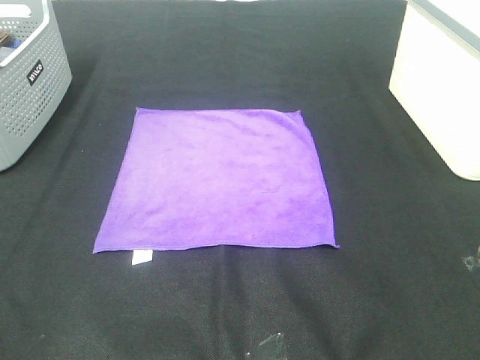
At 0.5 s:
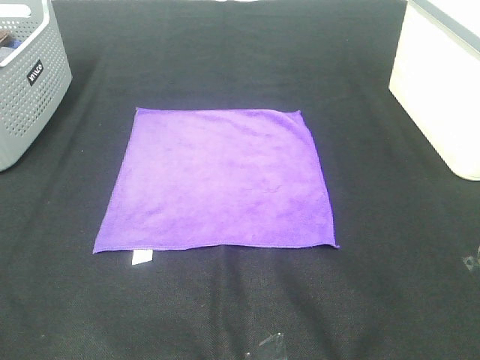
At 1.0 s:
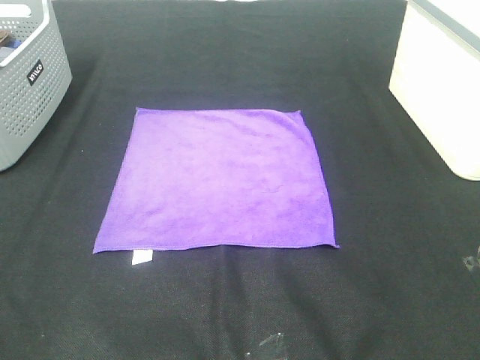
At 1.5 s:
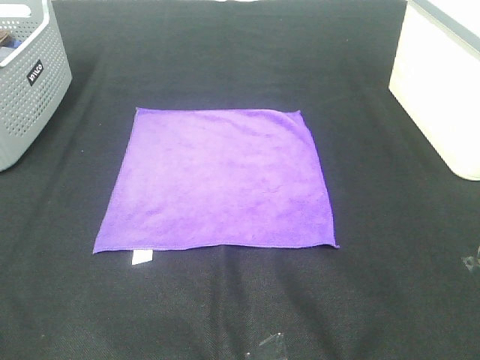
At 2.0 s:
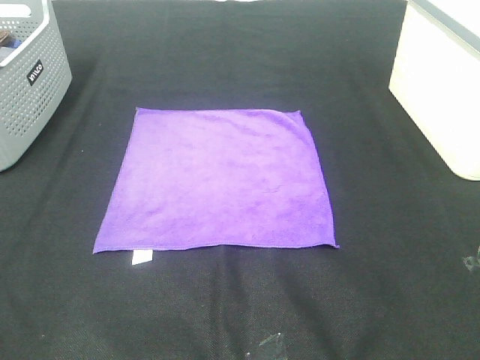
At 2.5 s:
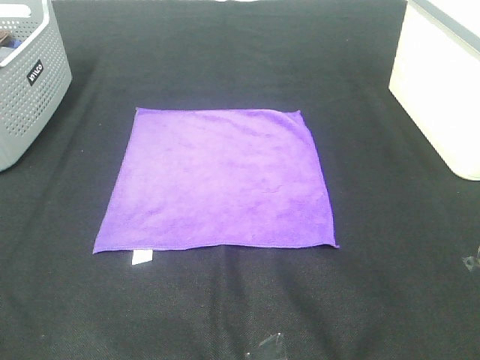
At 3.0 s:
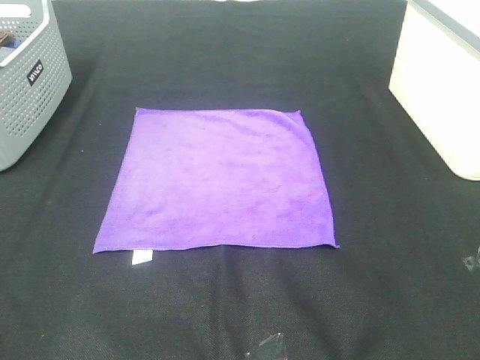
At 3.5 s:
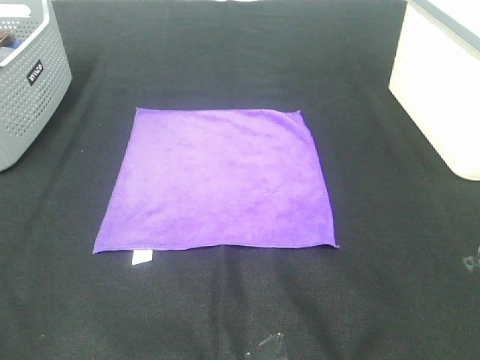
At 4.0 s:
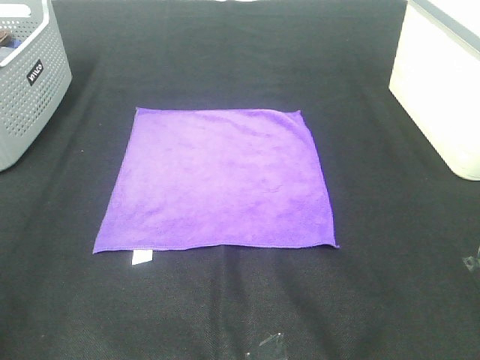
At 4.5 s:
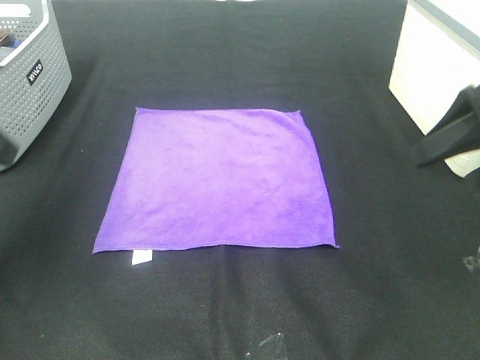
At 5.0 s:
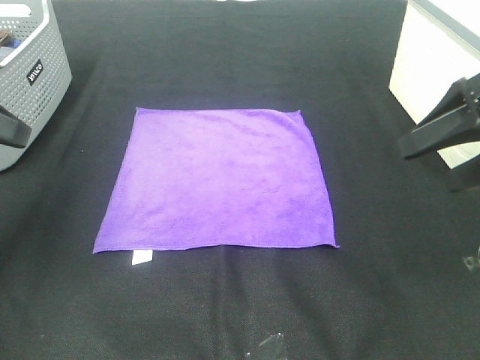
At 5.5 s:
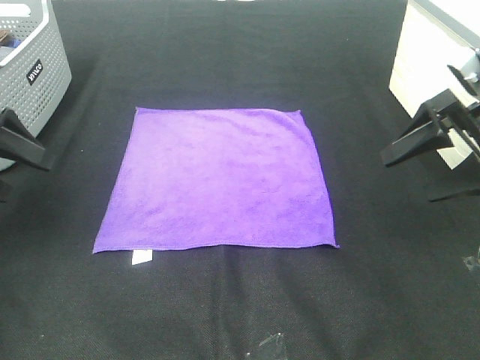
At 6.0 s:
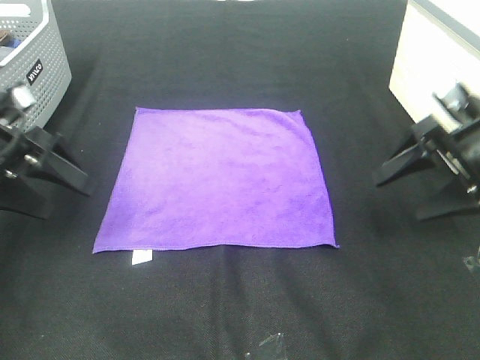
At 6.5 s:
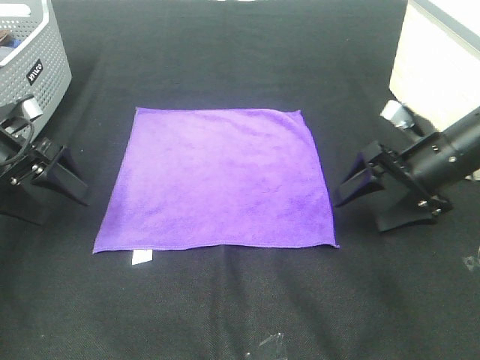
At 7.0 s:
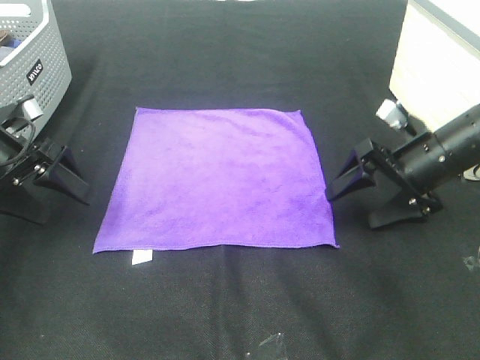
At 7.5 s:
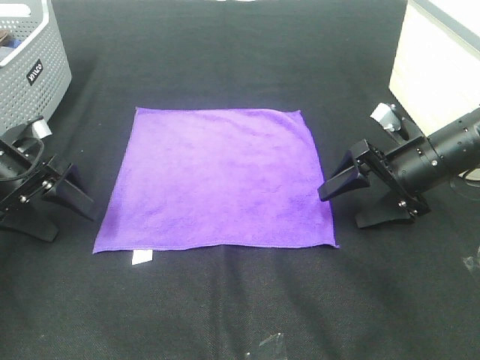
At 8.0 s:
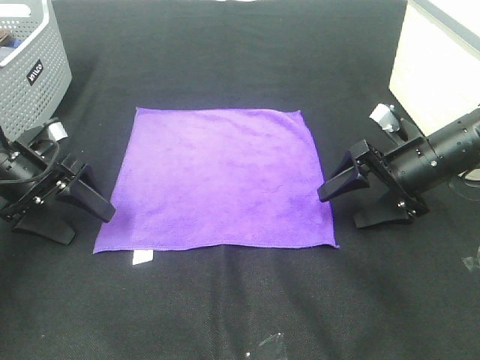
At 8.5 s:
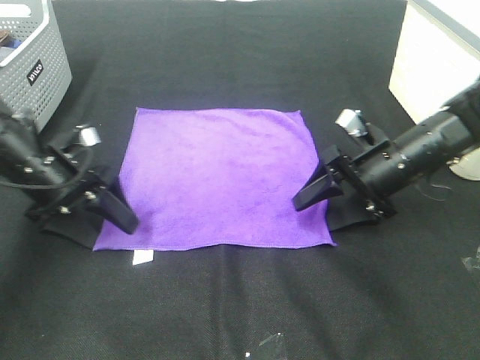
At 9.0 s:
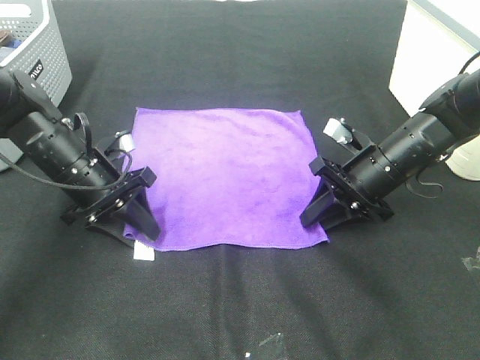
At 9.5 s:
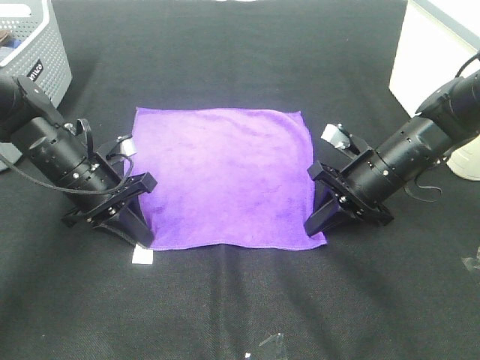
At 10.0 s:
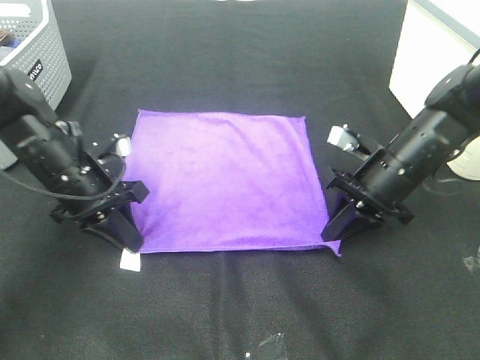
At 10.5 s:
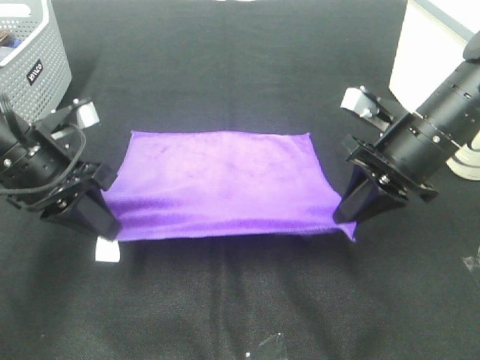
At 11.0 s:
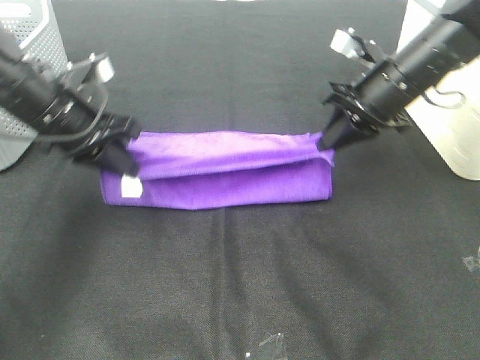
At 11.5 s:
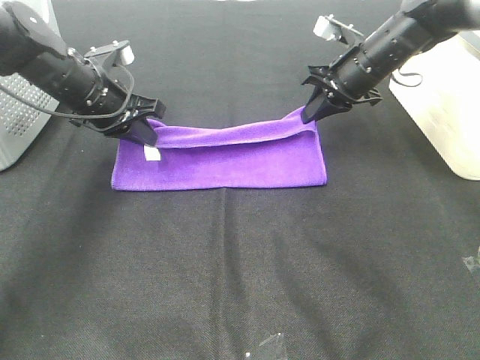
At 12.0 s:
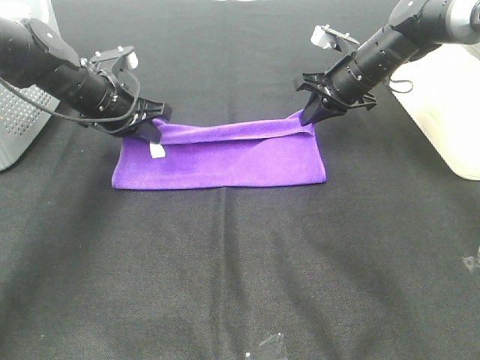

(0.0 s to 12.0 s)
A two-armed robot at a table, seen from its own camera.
Task of the whole recording: Fold towels.
Step, 0.0 s - 9.0 s: Left hand: grab the bottom left corner of purple towel.
Step, 0.0 s - 9.0 s: Right hand: grab the bottom right corner of purple towel.
0.0 s - 2.0 s: The two grippers keep their place.
4.0 s - 6.0 s: Both grippers move forward and downward, approximately 25 cm.
6.0 s - 8.0 s: The right gripper is displaced to the left and downward by roughly 5 cm. The left gripper heads downward, covering approximately 5 cm.
8.0 s - 10.0 s: The left gripper travels to the right by some 10 cm, and closes up, while the right gripper closes up.
10.0 s - 12.0 s: The two grippers go some 15 cm forward.

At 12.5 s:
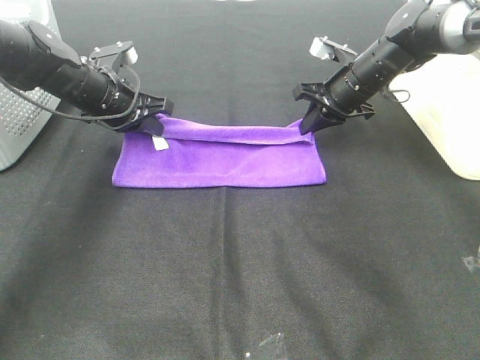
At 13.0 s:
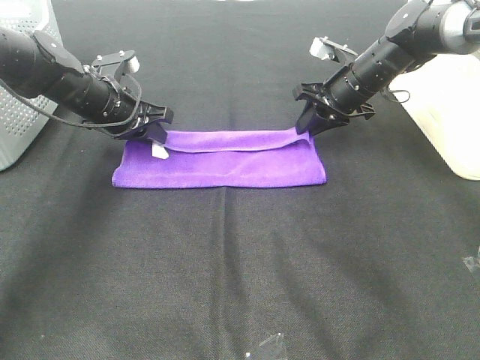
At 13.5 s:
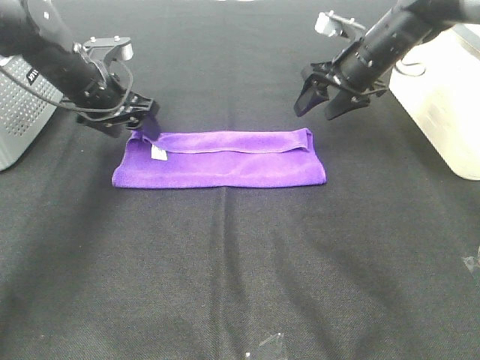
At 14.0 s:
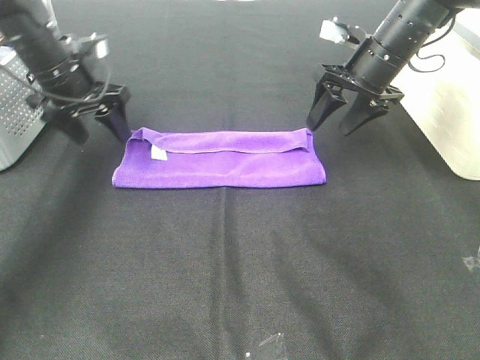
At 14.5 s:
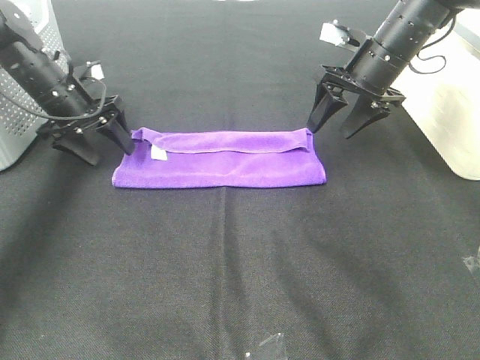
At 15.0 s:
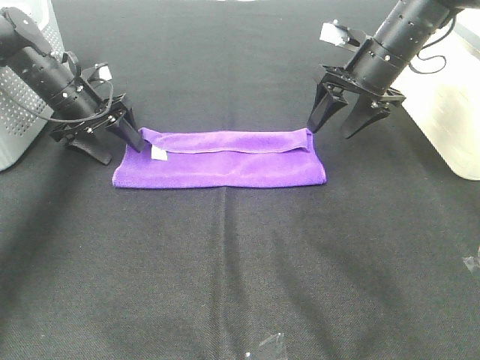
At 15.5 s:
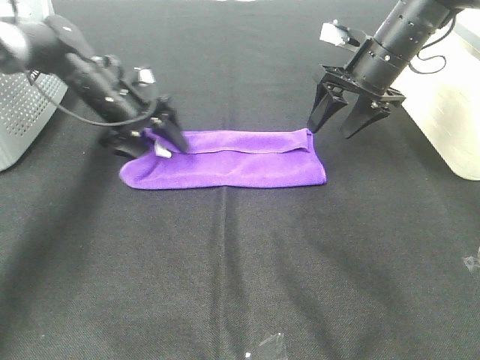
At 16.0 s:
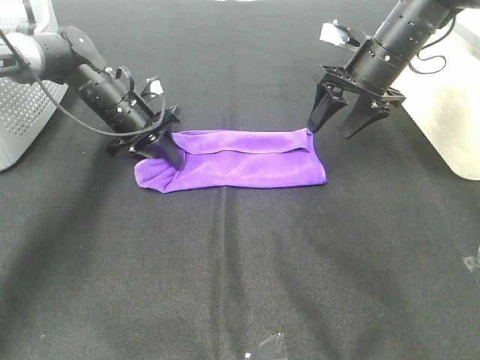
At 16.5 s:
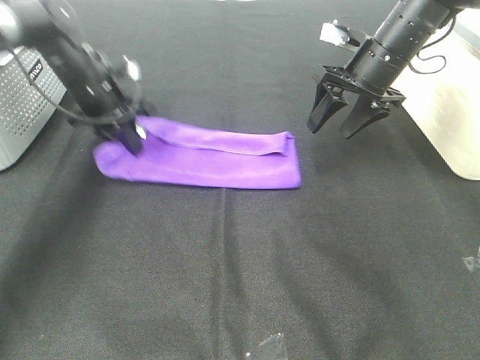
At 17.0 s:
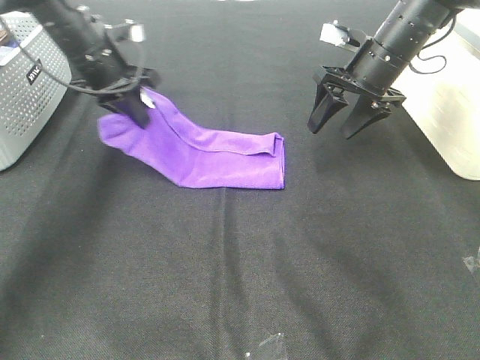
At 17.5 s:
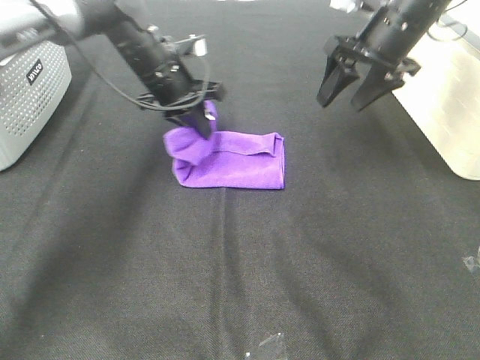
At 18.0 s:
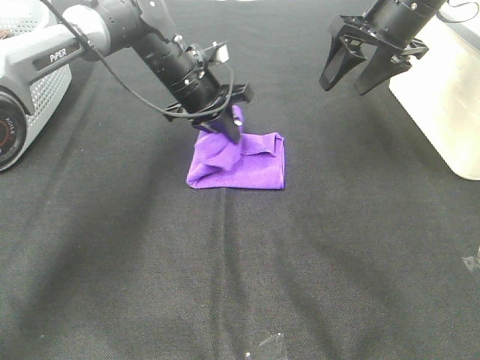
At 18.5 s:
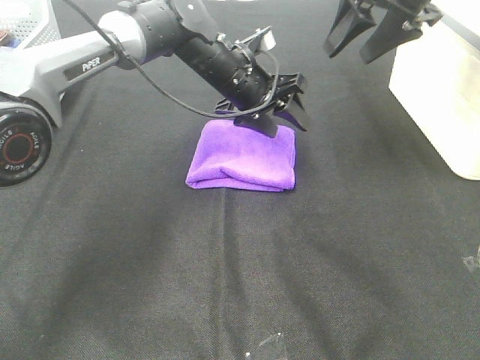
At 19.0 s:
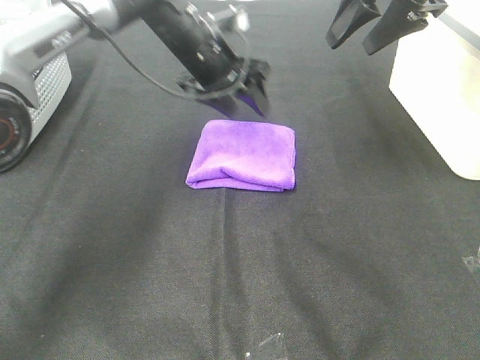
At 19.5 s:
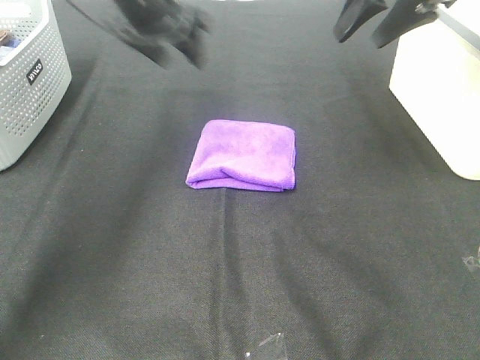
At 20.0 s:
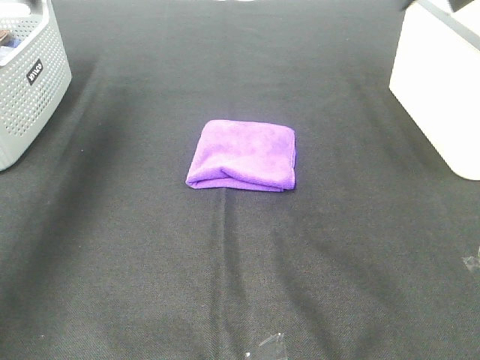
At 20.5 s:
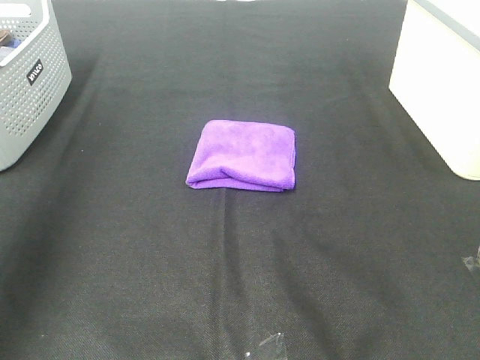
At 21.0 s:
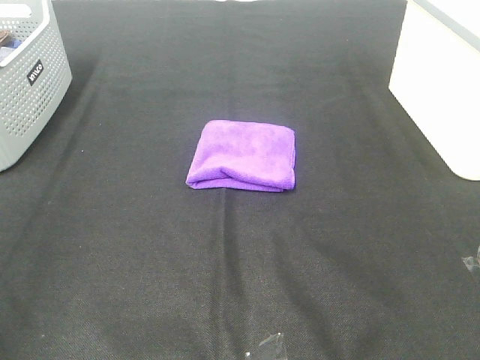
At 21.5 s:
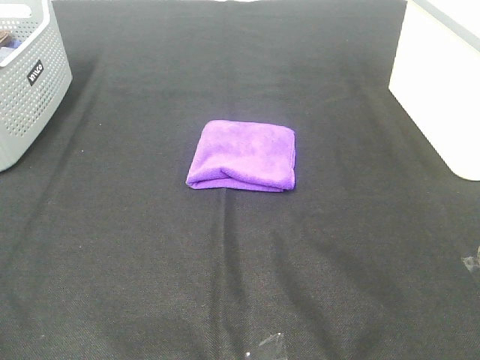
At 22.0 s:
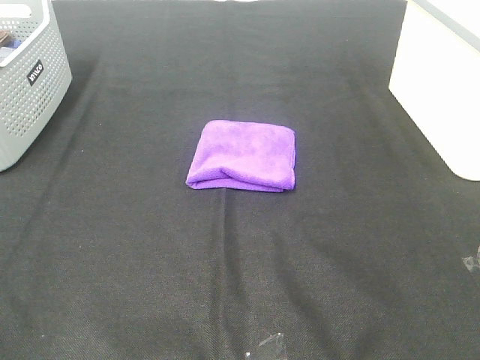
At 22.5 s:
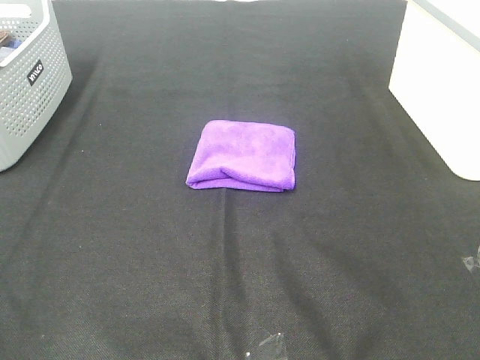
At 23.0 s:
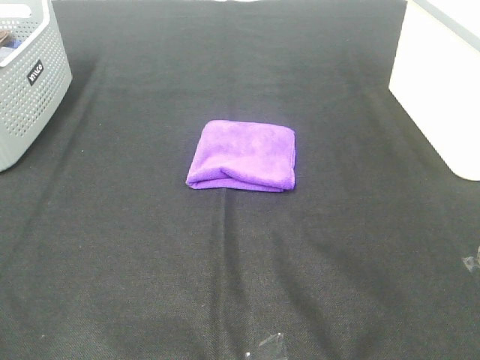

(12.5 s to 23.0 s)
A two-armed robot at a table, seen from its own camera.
Task of the whole recording: Fold towels.
Step, 13.0 s - 18.0 s: Left hand: fold the purple towel from left to right.
12.5 s - 14.5 s: The left gripper moves to the left, some 5 cm, and opens up. Meanwhile the right gripper shifts about 5 cm upward, and opens.
14.5 s - 16.5 s: The left gripper closes its fingers.
16.5 s - 19.0 s: The left gripper is displaced to the right by approximately 15 cm, and opens its fingers. The right gripper heads upward, covering approximately 15 cm.
19.0 s - 21.0 s: The right gripper is displaced backward by approximately 40 cm. Meanwhile the left gripper heads backward and to the left, covering some 50 cm.

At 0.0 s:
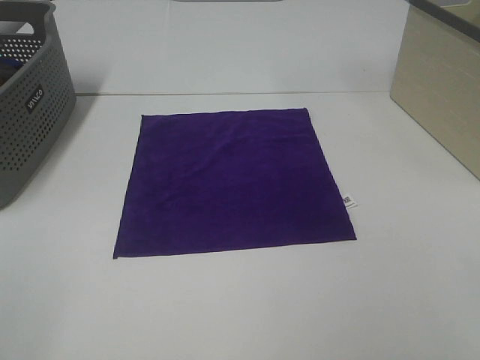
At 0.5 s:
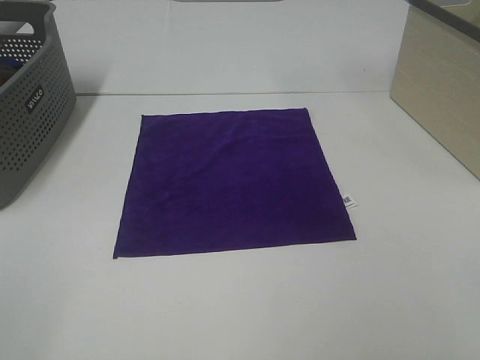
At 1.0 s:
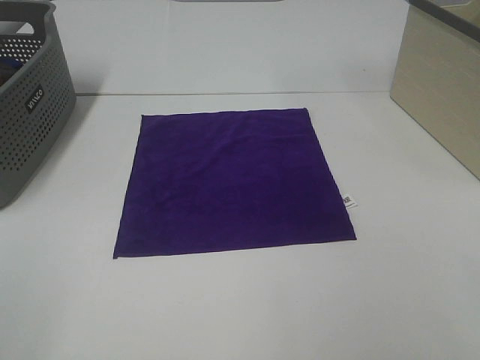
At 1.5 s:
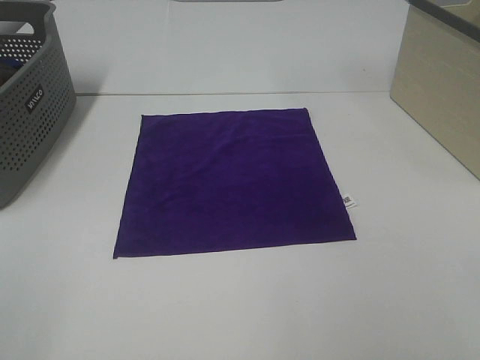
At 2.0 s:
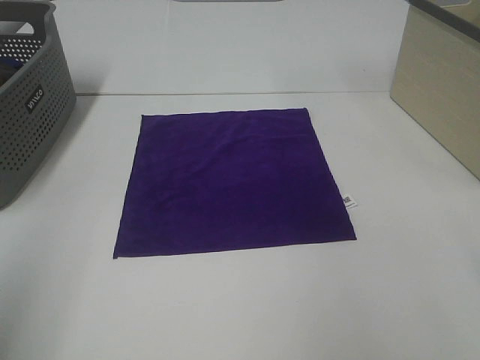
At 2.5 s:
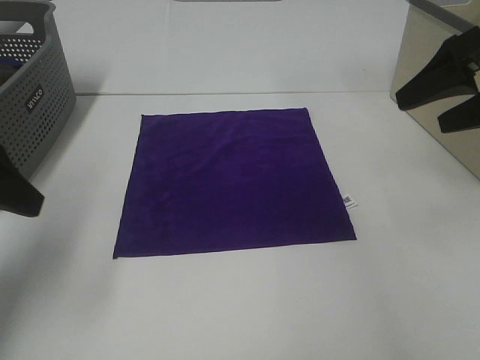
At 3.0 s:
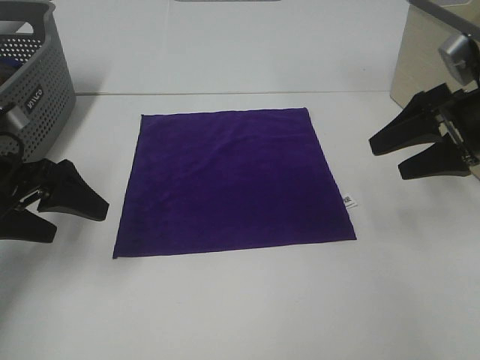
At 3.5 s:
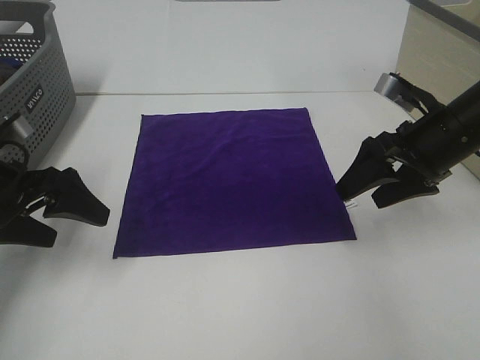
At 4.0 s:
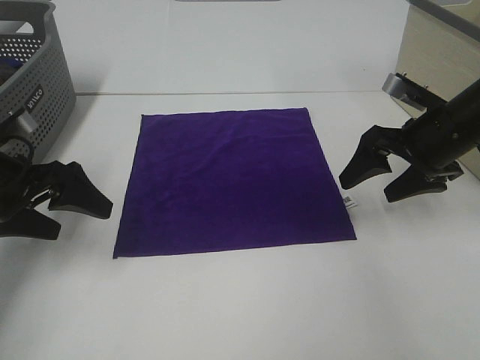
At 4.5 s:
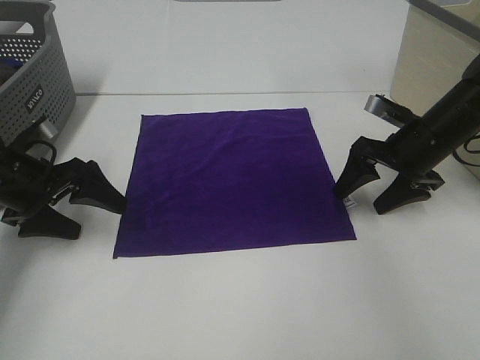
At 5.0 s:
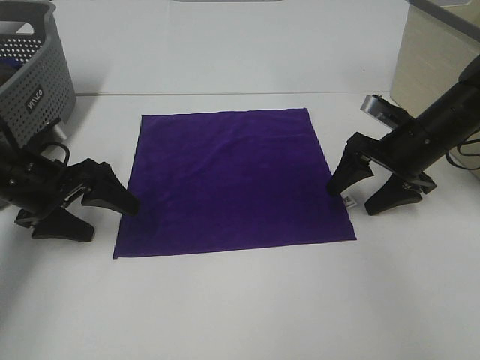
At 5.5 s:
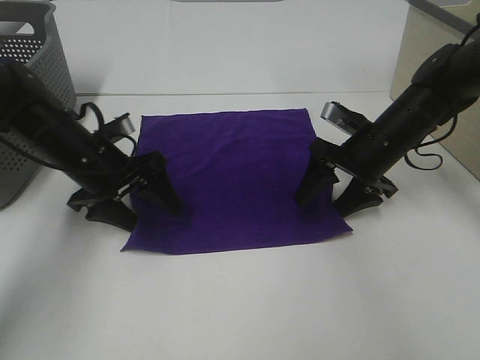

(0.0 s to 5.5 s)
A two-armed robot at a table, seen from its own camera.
Task of the whole recording: Fold towels.
0.0 s - 2.0 s: The left gripper heads forward and upward, covering some 10 cm.
2.0 s - 3.5 s: Both grippers travel together downward and forward, about 25 cm.
3.5 s - 5.5 s: The right gripper is displaced downward, forward and to the left by approximately 10 cm. Meanwhile the left gripper is displaced to the right and forward by some 10 cm.
